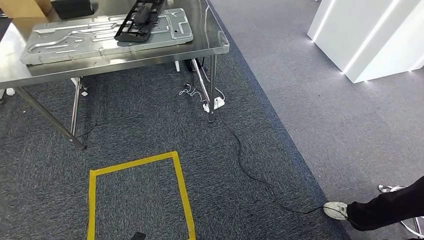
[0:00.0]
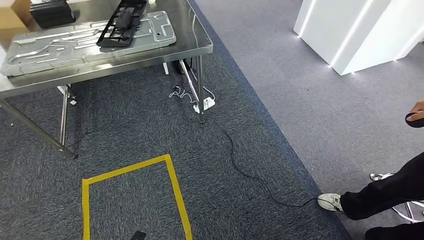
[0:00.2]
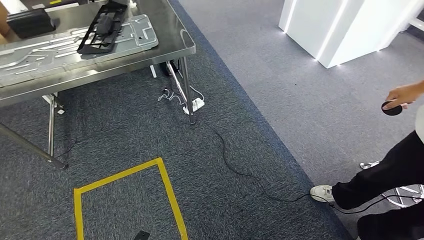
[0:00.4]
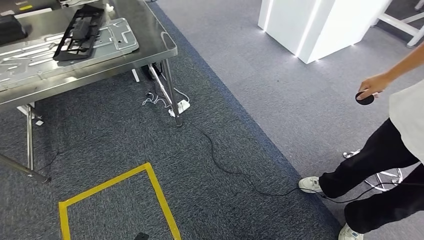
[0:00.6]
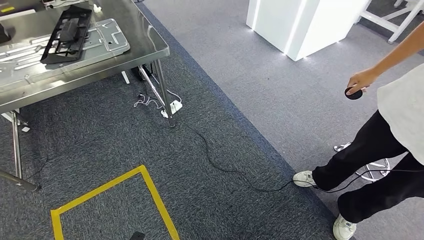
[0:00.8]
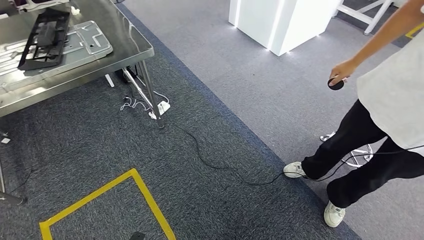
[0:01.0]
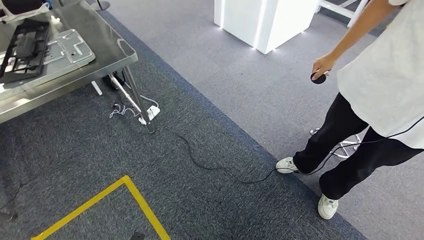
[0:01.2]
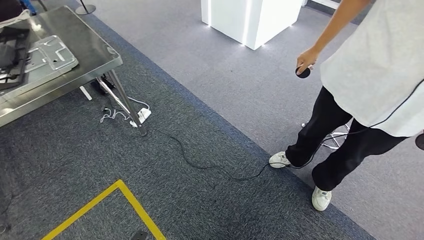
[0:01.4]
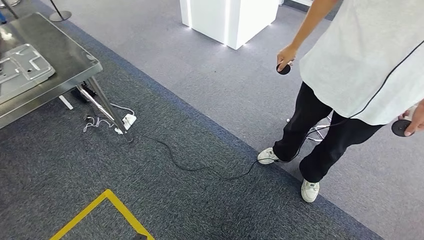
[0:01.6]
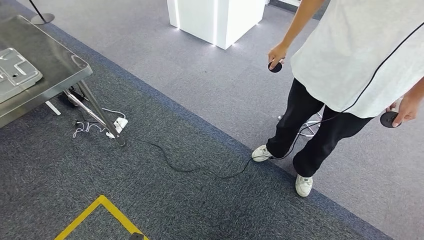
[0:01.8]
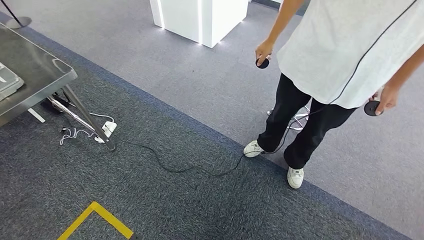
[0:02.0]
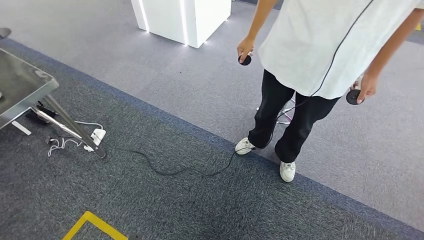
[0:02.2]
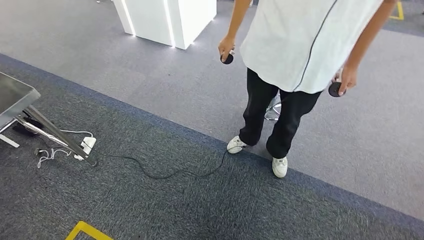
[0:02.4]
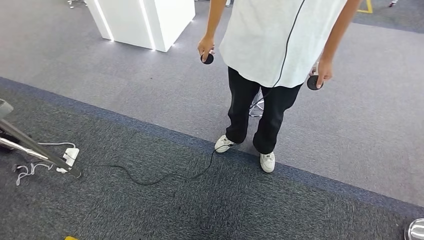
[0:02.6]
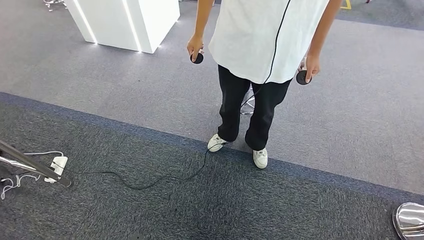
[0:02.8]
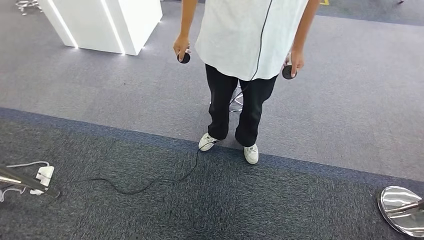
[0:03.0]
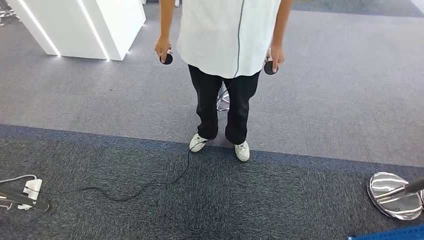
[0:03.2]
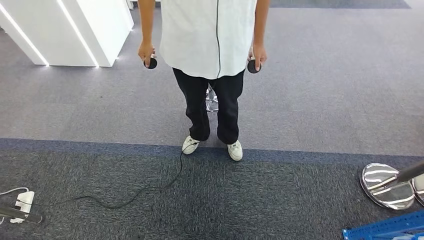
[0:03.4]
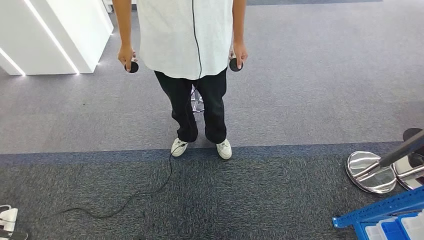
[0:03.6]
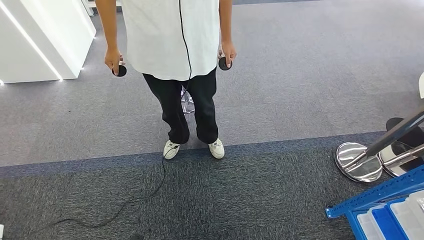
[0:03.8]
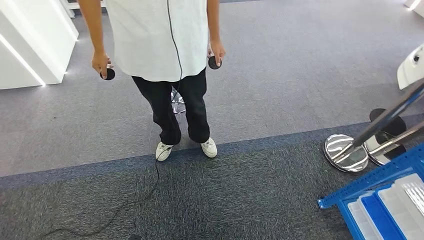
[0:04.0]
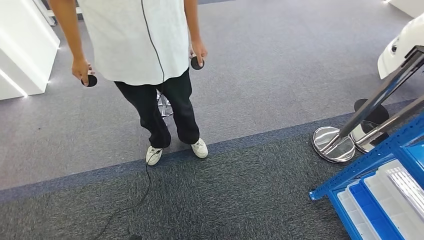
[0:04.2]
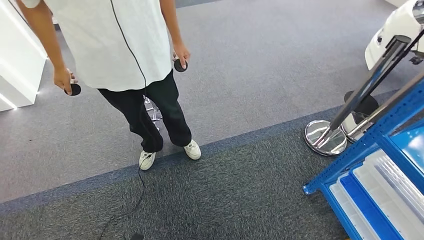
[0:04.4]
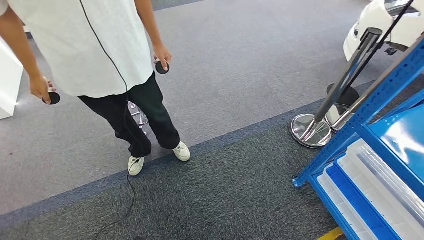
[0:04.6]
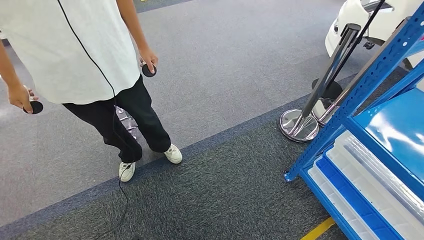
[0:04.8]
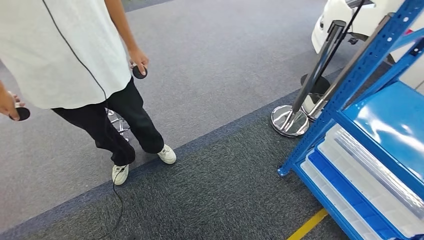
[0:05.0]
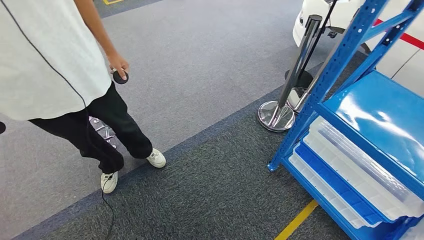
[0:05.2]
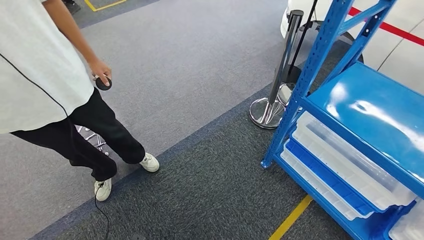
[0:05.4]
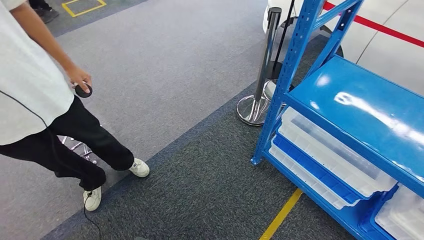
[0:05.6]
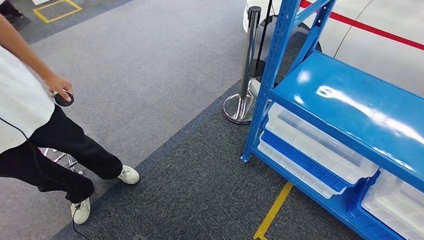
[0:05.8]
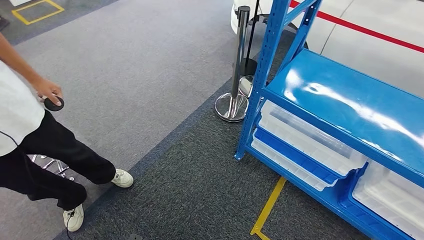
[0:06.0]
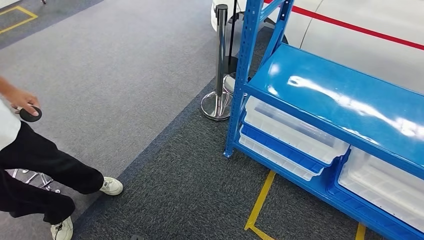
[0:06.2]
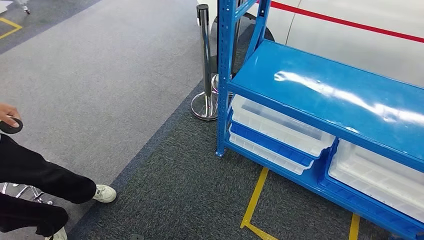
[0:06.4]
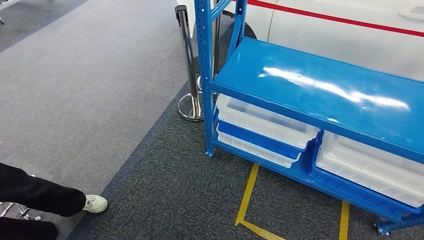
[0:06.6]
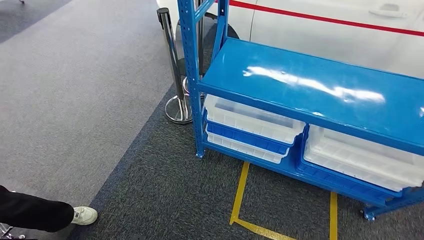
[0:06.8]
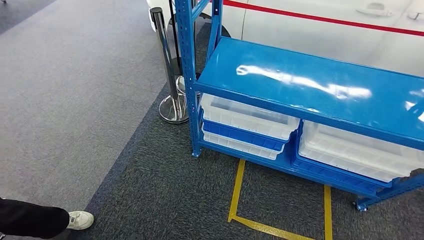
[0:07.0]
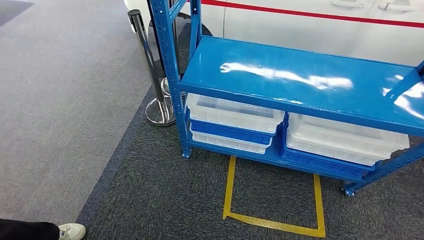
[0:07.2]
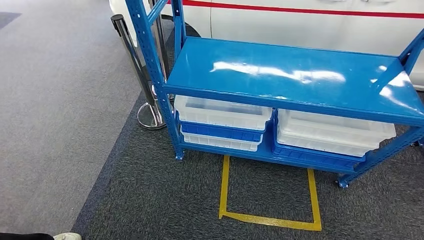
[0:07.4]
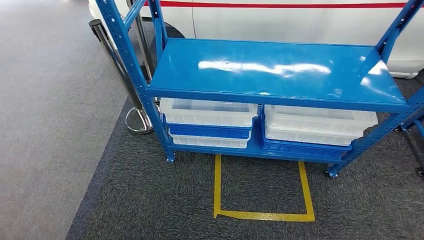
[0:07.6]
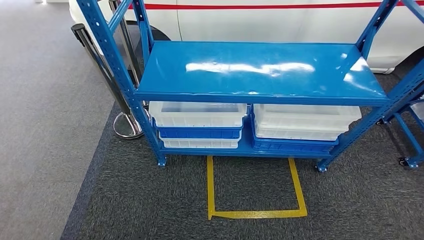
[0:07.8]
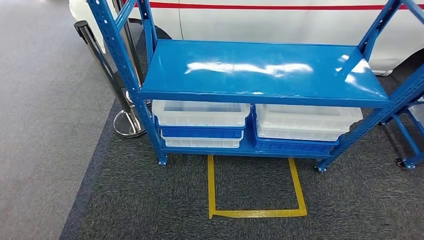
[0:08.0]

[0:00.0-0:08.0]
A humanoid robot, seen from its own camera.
Step, 0:00.0 to 0:08.0: Move to the initial position of the shelf.

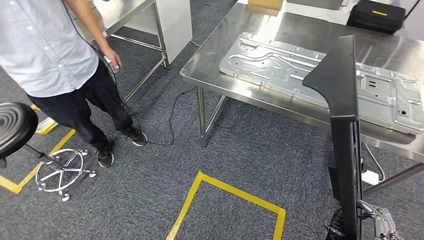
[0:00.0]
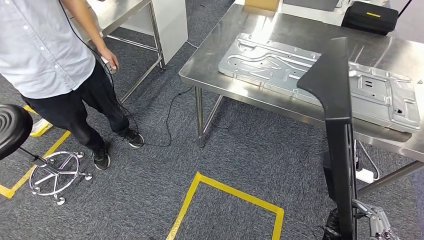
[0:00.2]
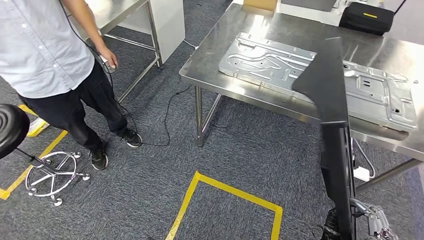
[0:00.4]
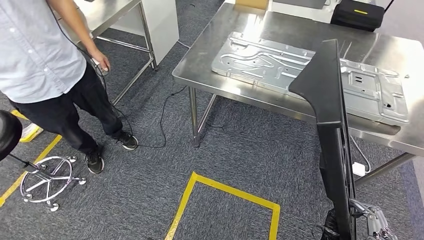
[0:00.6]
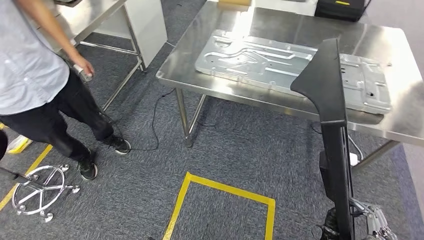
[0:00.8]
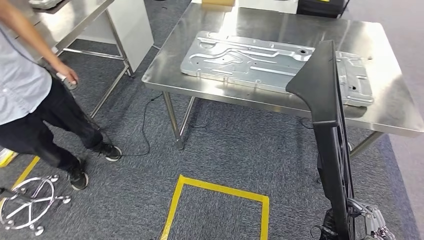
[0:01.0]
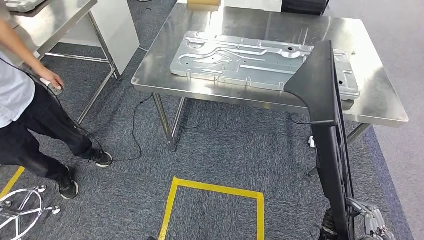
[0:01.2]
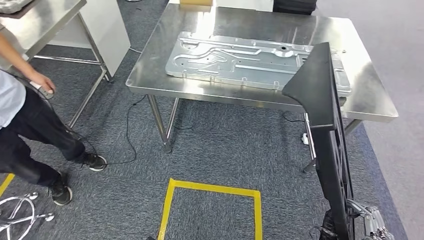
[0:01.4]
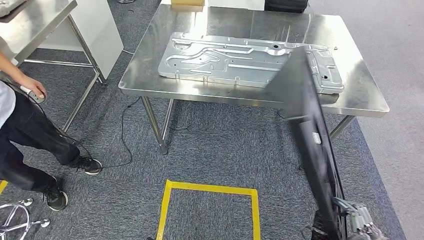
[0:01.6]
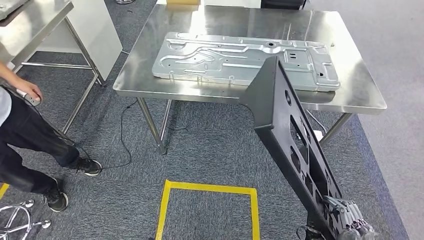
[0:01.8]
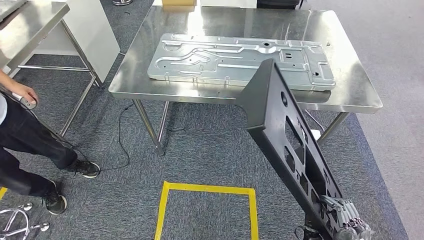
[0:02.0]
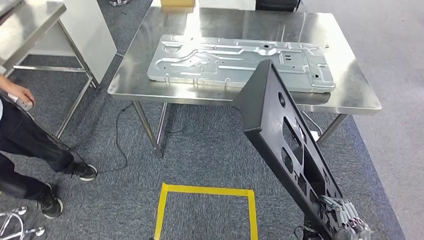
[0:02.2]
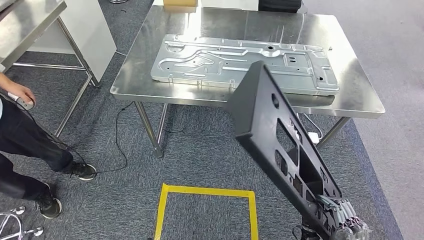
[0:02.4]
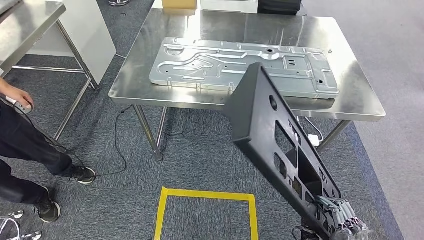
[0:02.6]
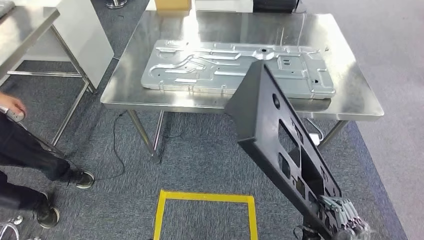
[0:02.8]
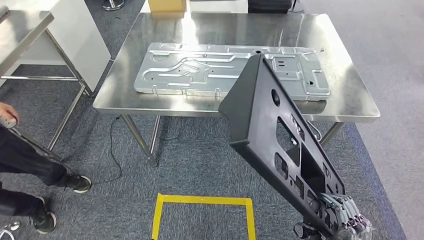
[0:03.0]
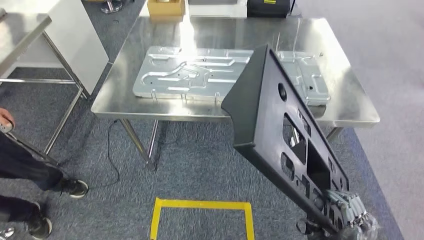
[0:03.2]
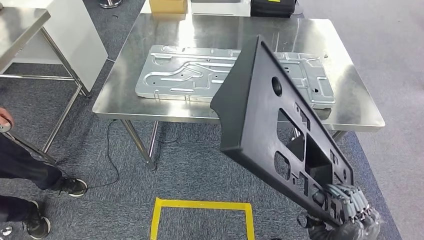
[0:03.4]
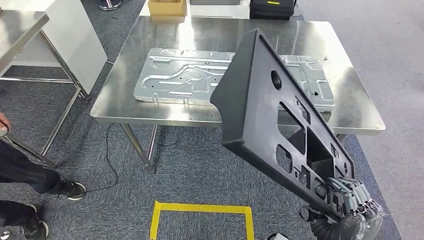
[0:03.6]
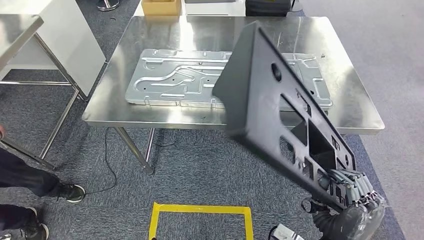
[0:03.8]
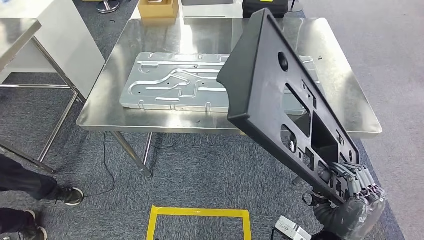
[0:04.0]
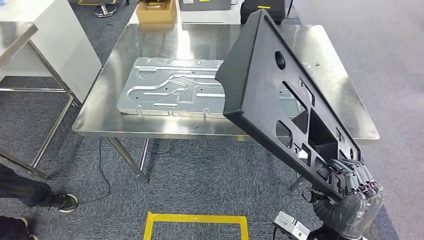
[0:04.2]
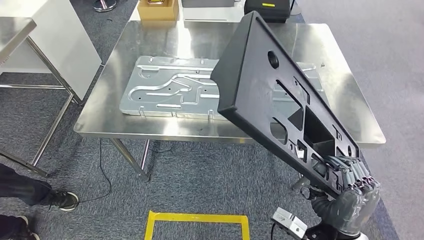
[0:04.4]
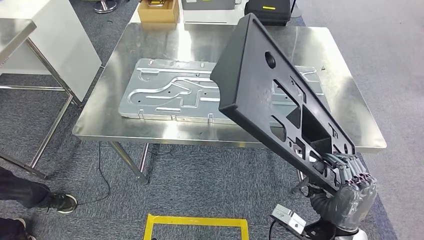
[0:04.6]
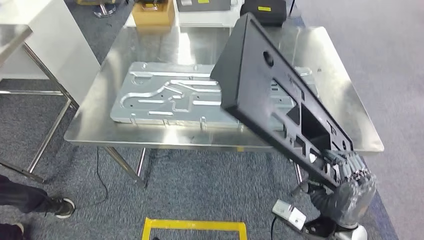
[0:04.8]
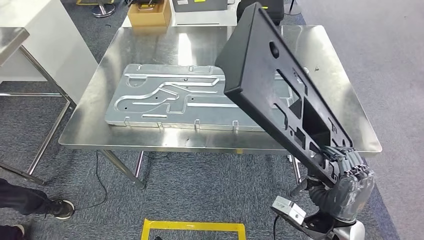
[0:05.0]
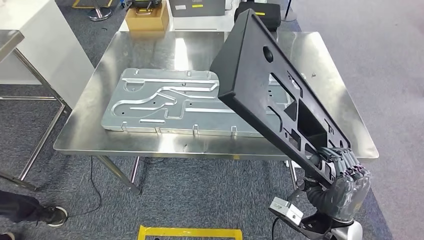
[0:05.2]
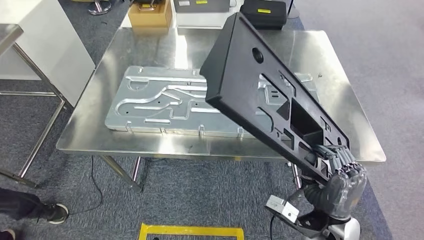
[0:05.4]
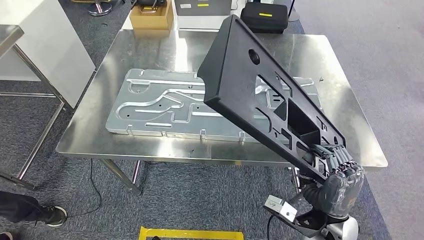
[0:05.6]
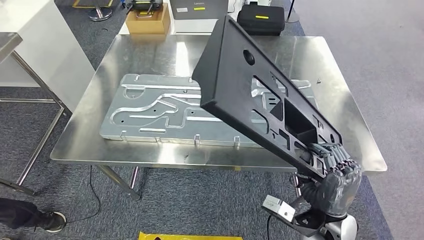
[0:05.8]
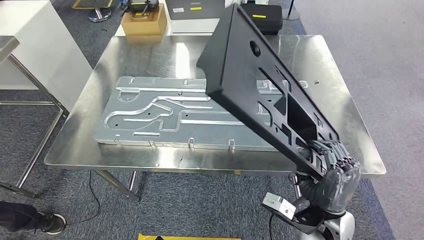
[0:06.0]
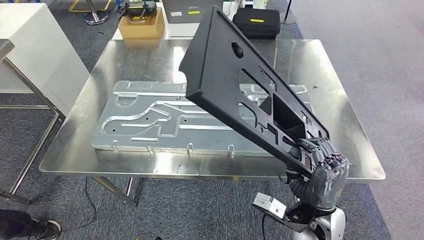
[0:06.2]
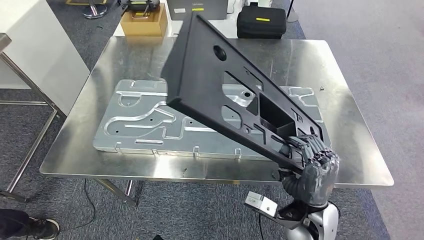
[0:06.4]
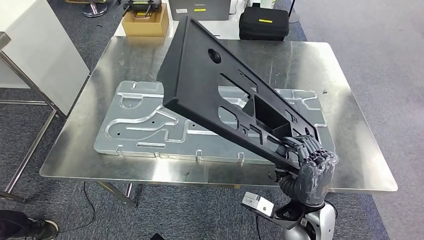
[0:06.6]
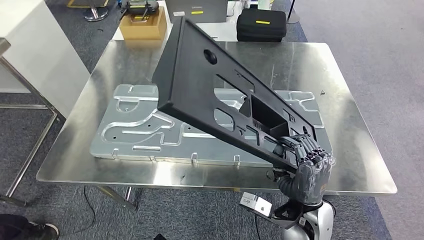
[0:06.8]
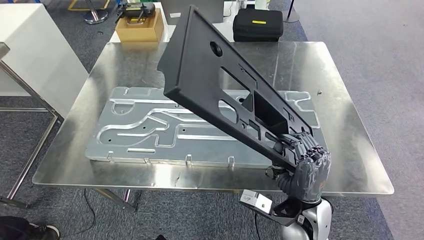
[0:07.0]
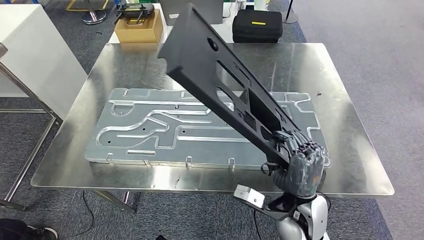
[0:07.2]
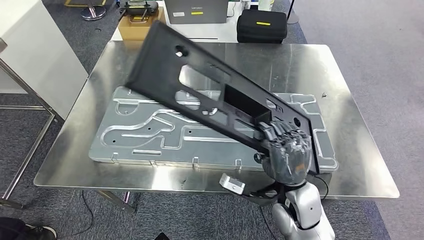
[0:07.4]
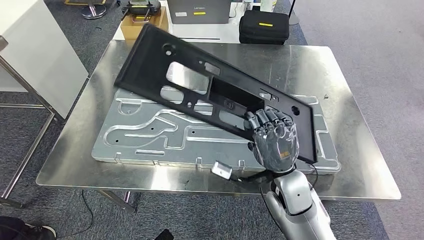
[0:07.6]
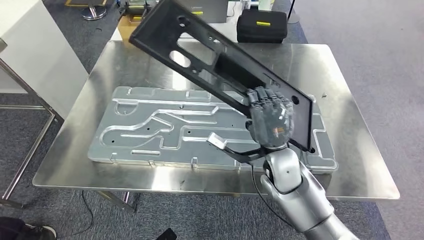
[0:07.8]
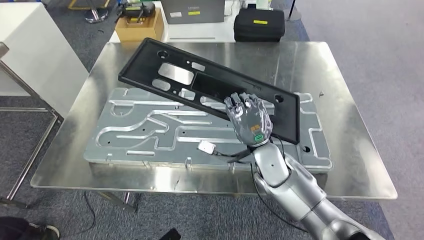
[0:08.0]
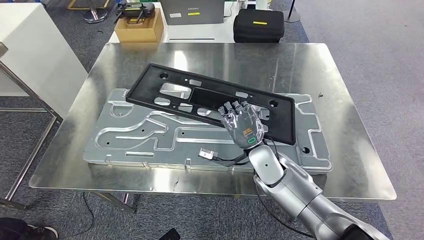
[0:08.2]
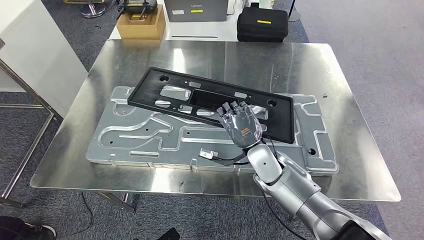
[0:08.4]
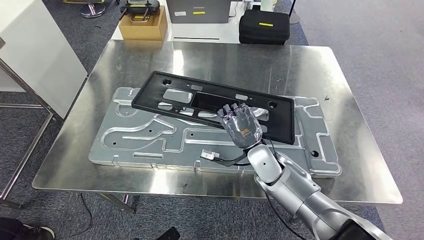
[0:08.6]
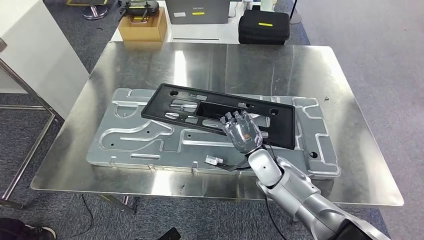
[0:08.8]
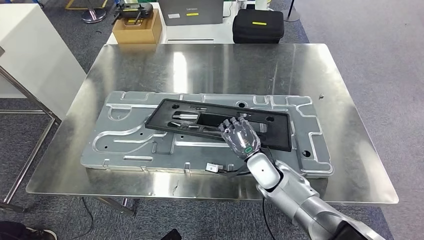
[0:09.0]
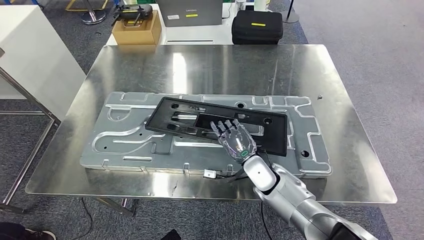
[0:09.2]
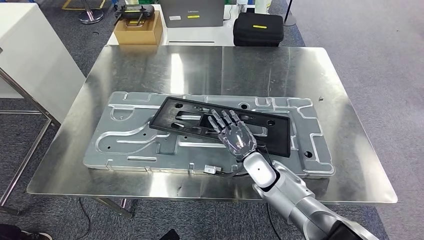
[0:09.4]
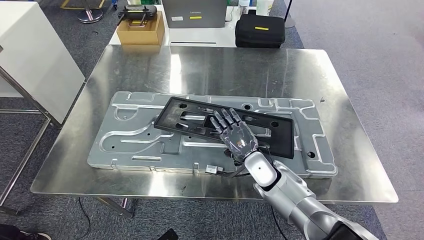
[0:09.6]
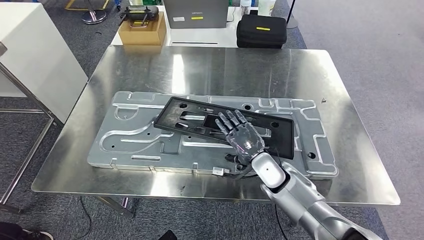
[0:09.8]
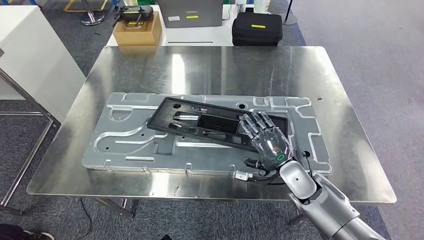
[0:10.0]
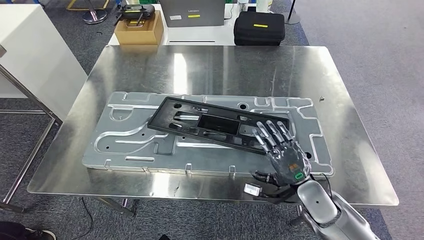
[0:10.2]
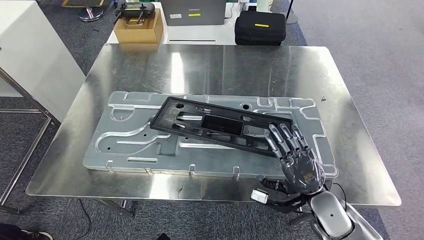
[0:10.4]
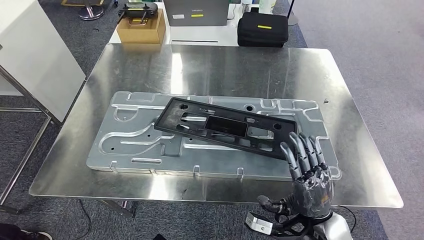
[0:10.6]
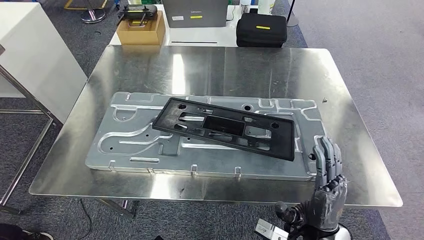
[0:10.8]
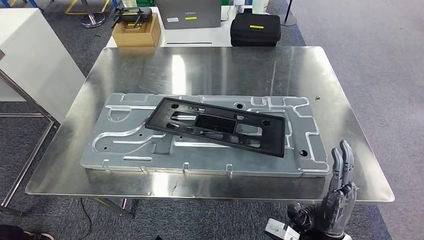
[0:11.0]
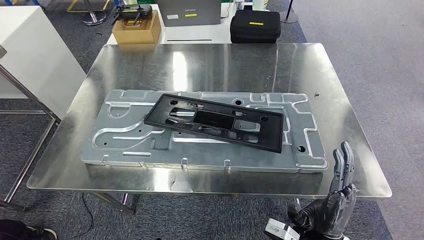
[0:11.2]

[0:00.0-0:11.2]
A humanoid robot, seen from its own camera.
Step, 0:00.0 to 0:04.2: Move the large material to the workbench.
